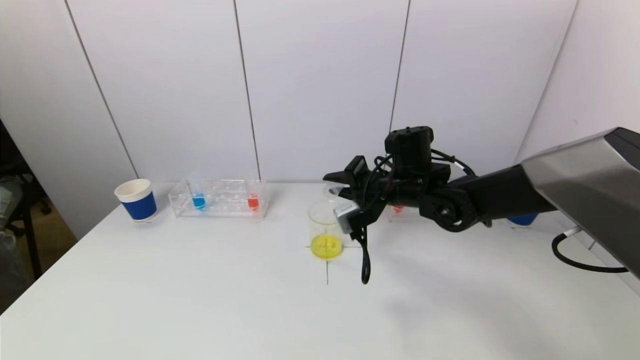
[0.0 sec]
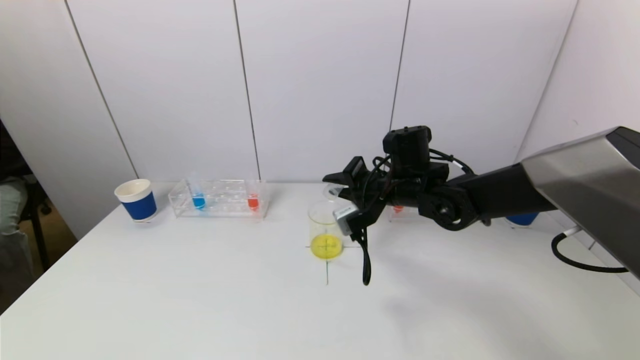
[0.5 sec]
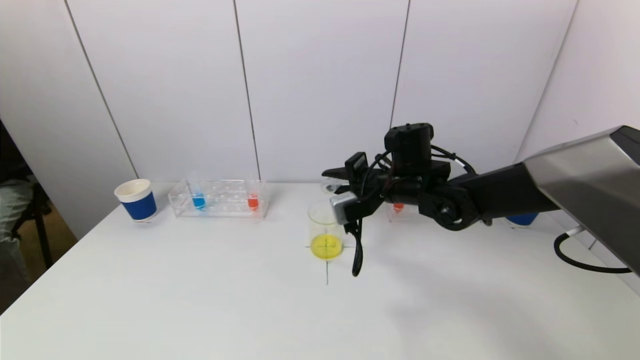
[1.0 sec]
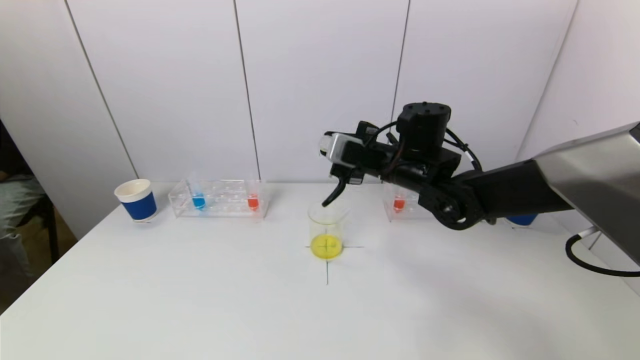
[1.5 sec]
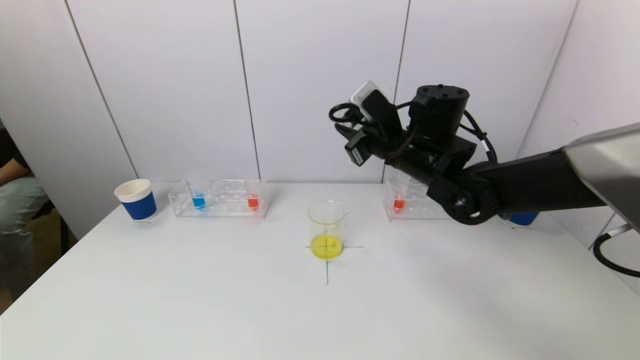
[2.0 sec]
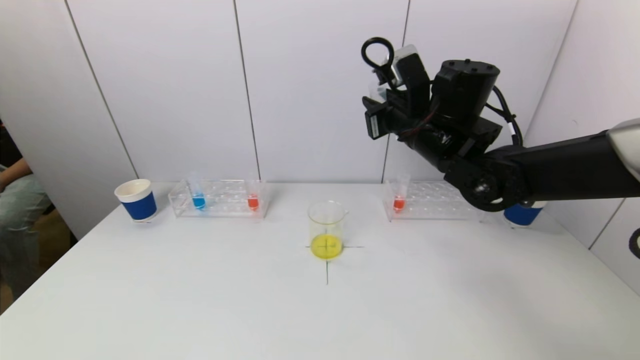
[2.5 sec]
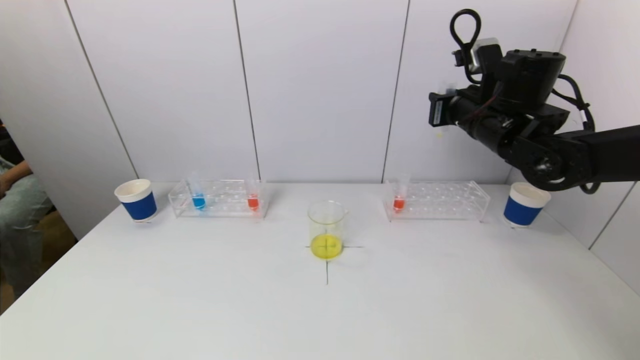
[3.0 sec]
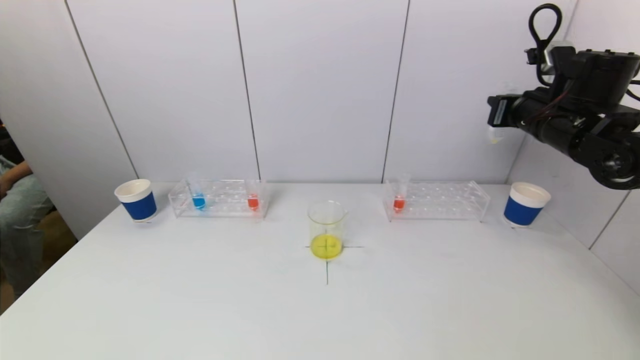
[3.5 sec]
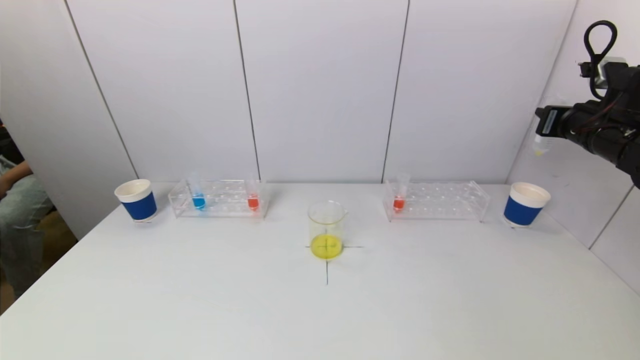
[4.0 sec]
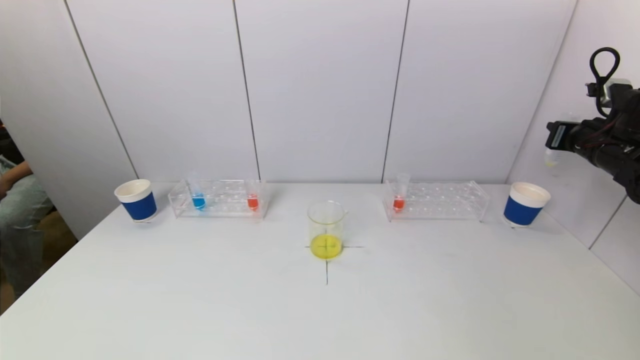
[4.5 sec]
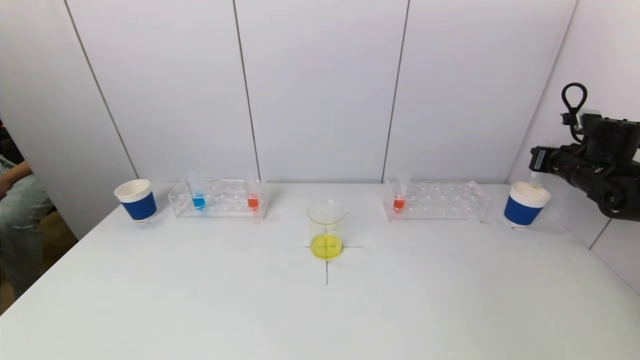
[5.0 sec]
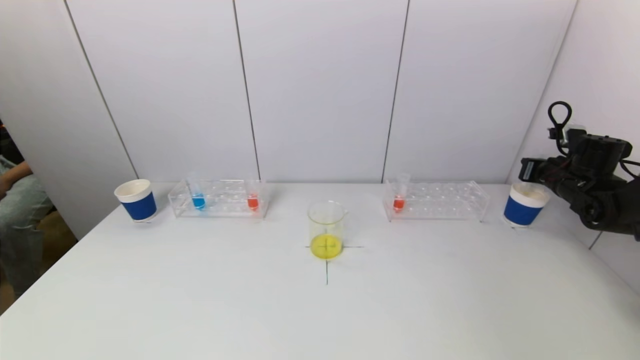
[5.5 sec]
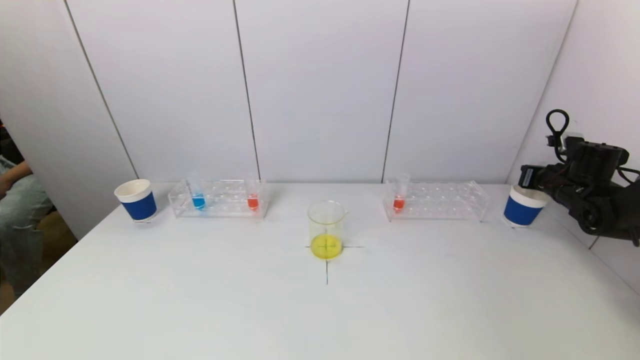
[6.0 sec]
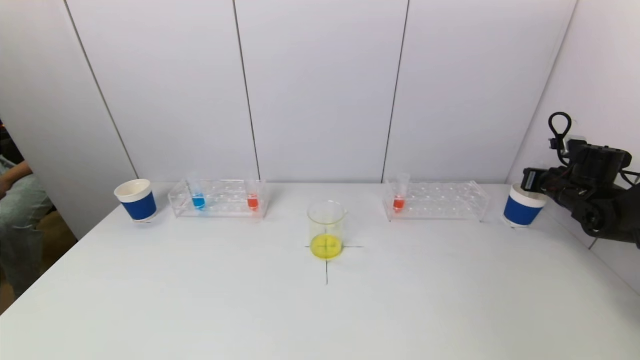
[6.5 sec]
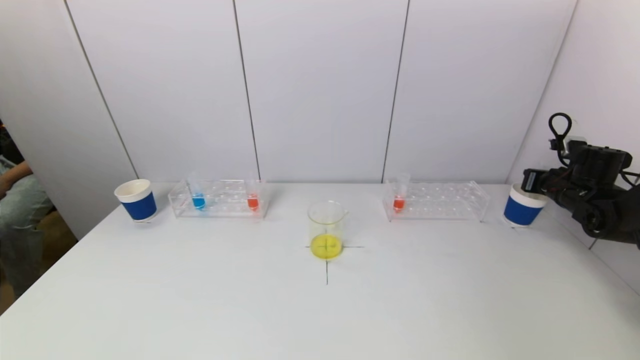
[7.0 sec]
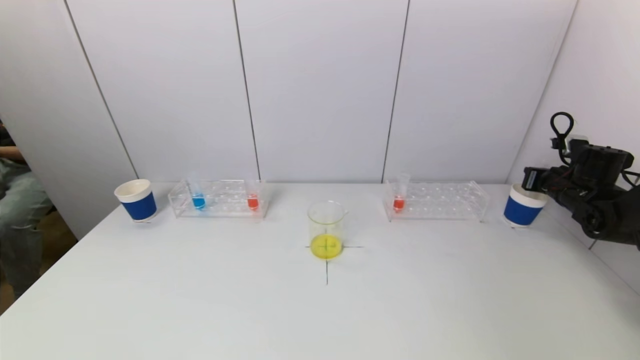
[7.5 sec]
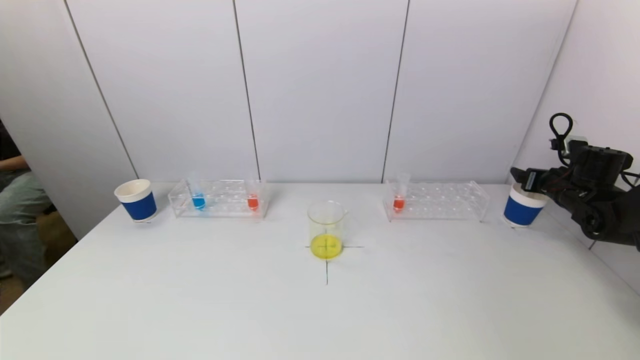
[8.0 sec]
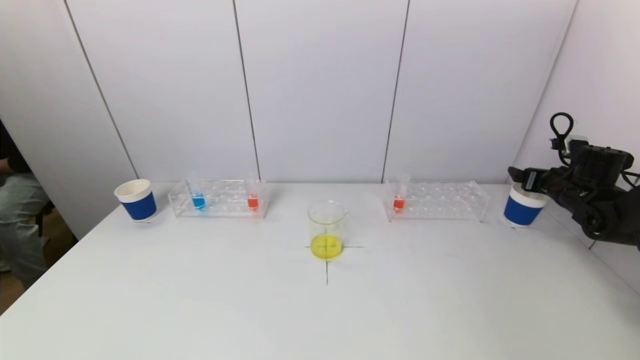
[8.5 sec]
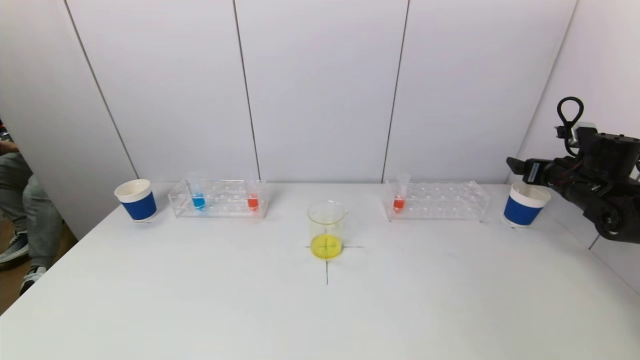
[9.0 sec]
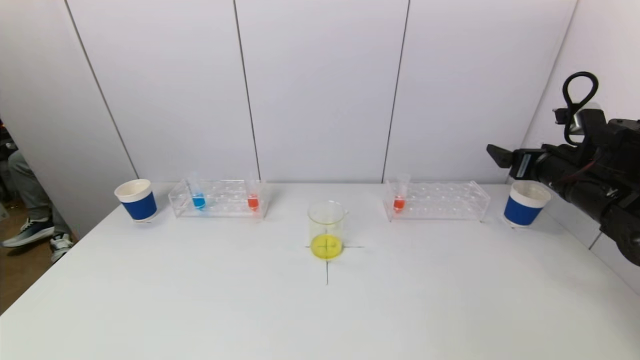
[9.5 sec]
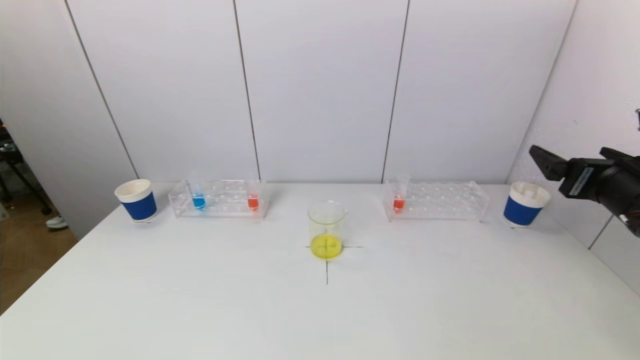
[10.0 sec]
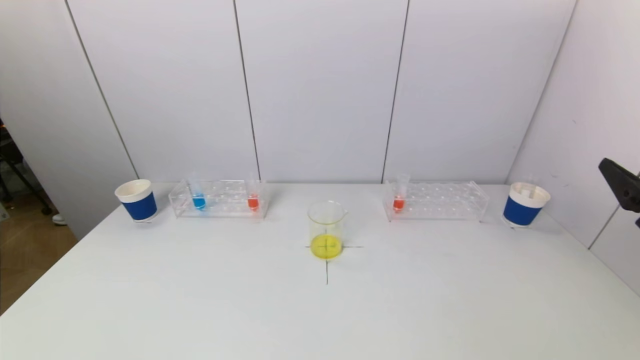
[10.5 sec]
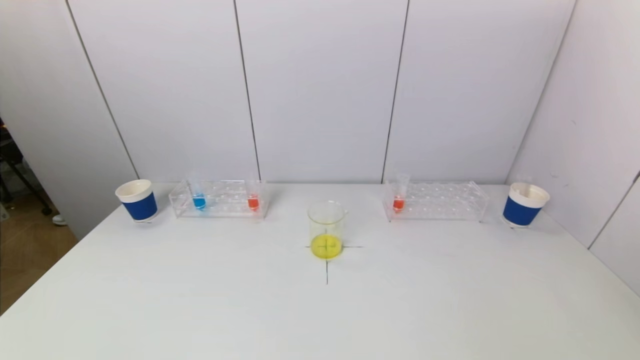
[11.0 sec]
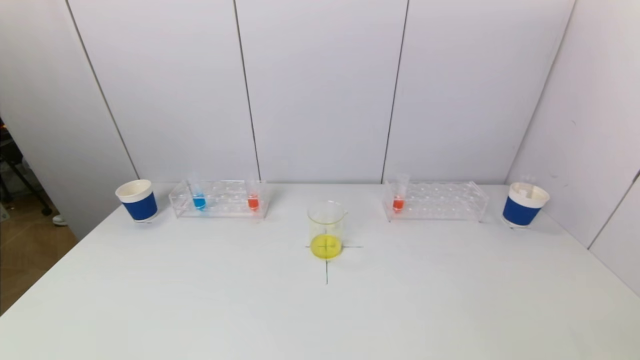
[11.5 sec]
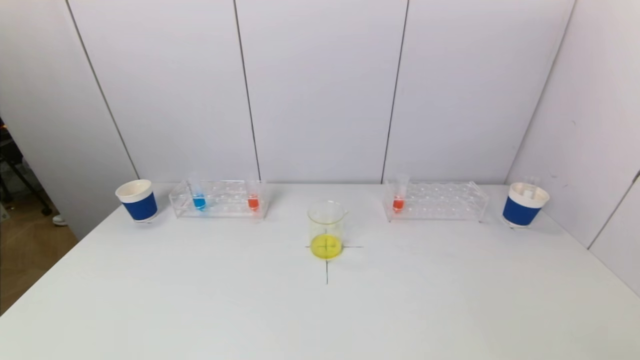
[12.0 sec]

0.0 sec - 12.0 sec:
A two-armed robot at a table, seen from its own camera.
Task of the whole recording: pick up a test tube with pigment on left test tube rack and a test tube with pigment on right test tube rack by grippers and pour them into the beaker.
Step, 0.0 sec - 7.5 sec: Place the test tube into the paper cup with the right gripper.
0.0 sec - 2.0 sec: The right gripper shifts roughly 5 cm upward.
2.0 sec - 4.0 sec: The right gripper travels to the right by some 30 cm.
4.0 sec - 6.0 sec: The right gripper shifts approximately 15 cm downward and to the right.
6.0 sec - 8.0 sec: The right gripper opens up.
8.0 sec - 10.0 sec: The right gripper moves backward, to the left and upward, some 25 cm.
10.0 sec - 12.0 sec: The right gripper goes roughly 25 cm backward and downward.

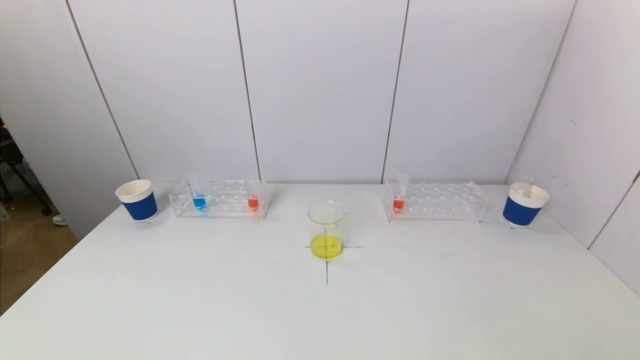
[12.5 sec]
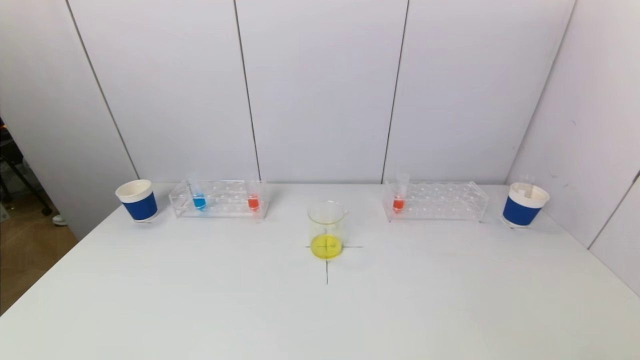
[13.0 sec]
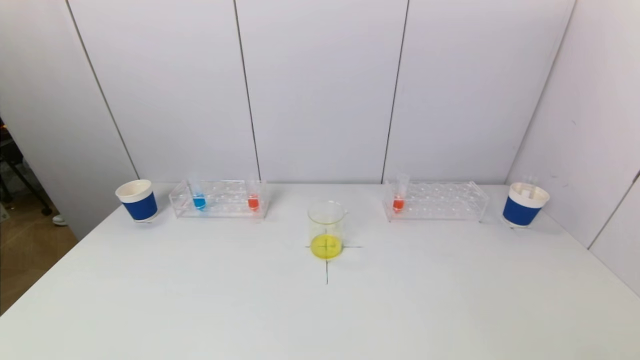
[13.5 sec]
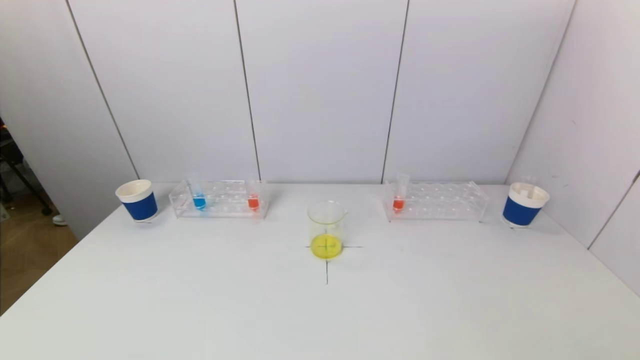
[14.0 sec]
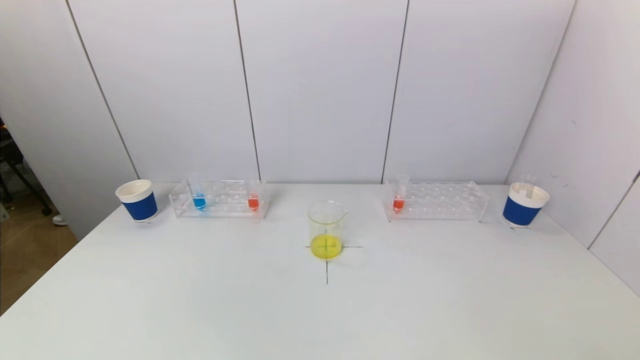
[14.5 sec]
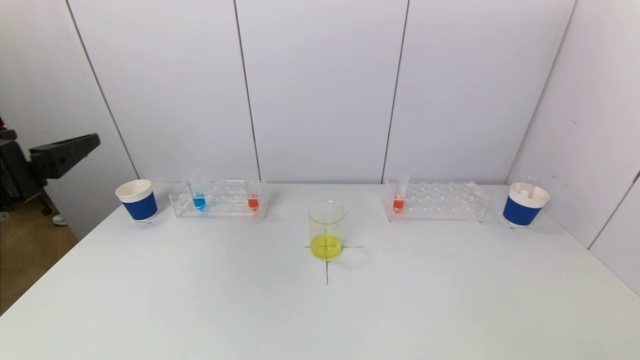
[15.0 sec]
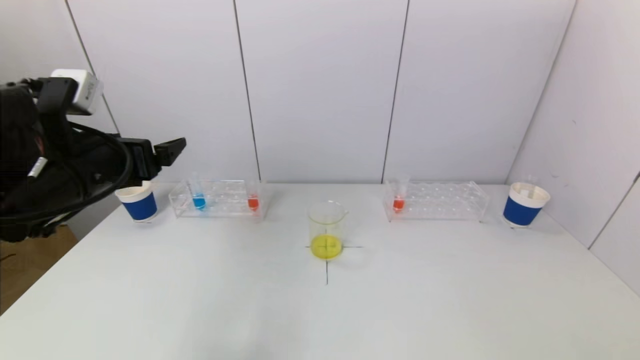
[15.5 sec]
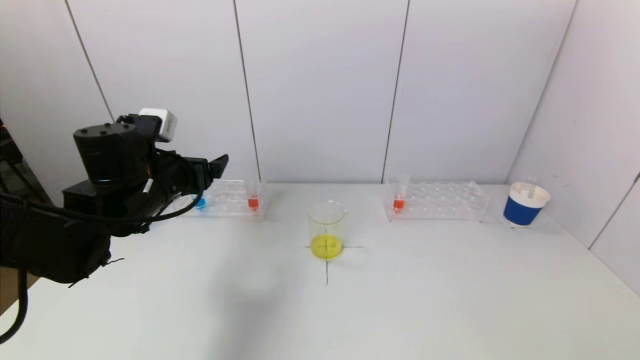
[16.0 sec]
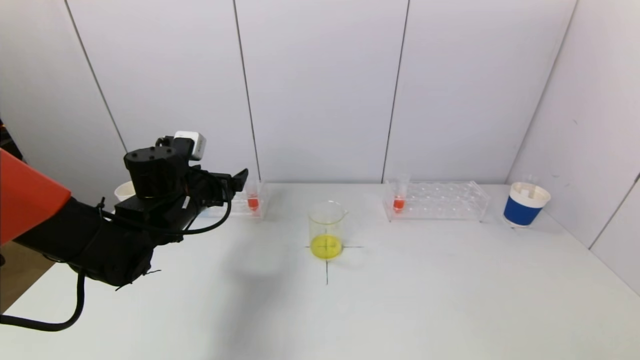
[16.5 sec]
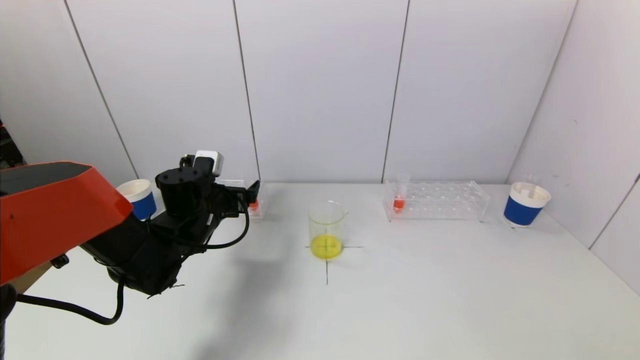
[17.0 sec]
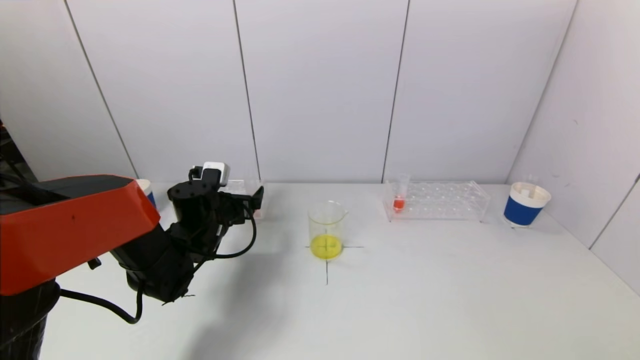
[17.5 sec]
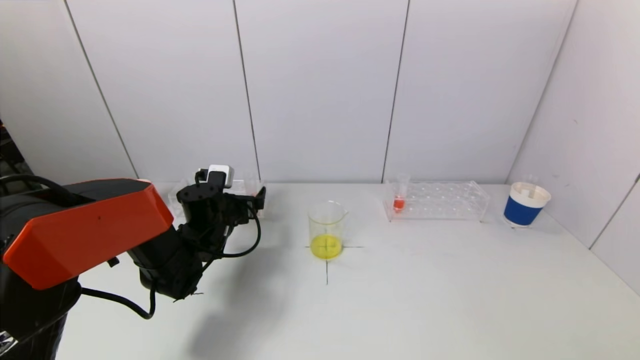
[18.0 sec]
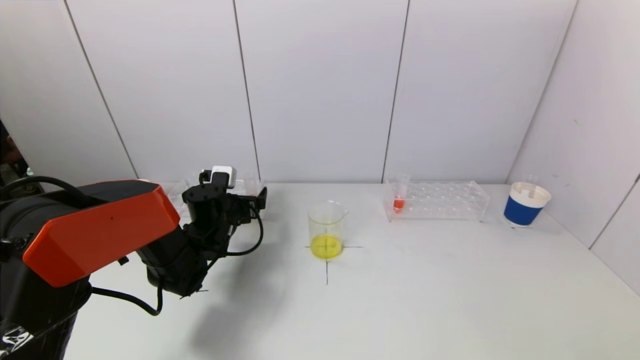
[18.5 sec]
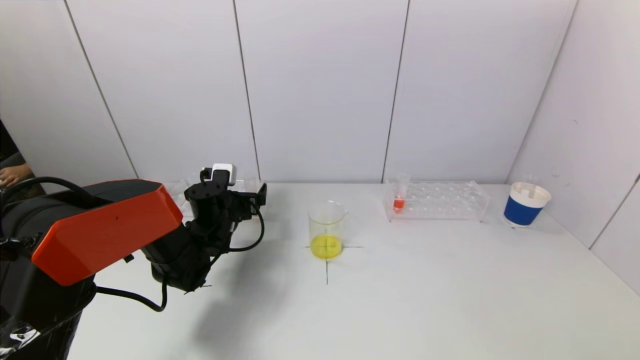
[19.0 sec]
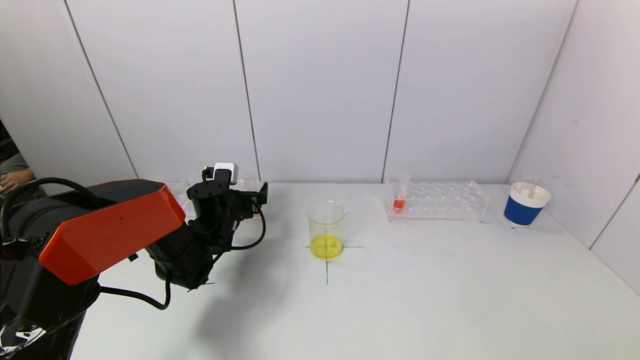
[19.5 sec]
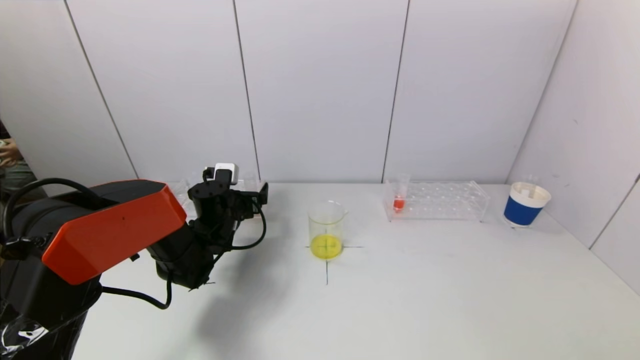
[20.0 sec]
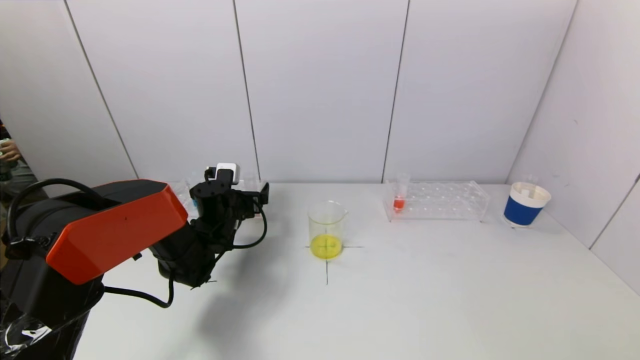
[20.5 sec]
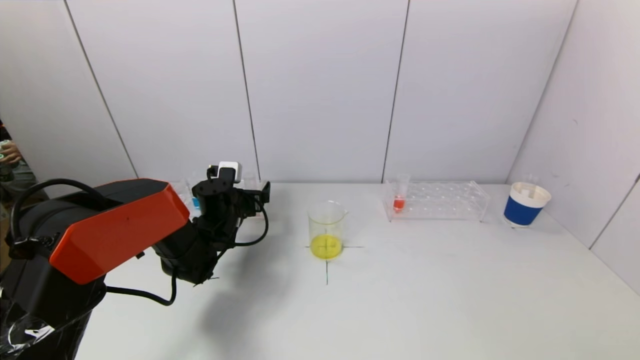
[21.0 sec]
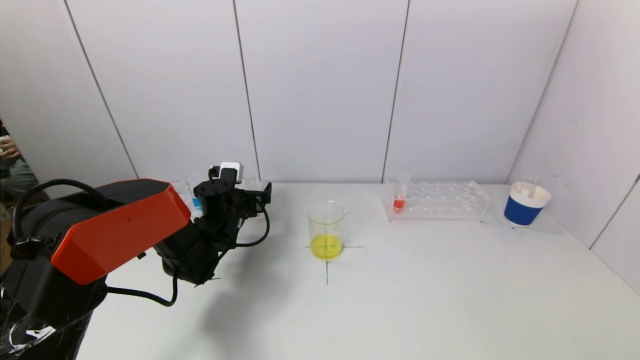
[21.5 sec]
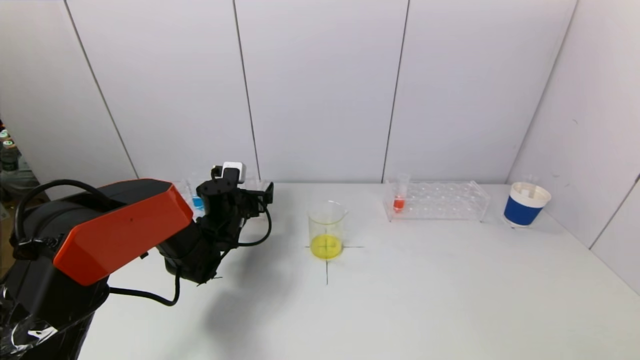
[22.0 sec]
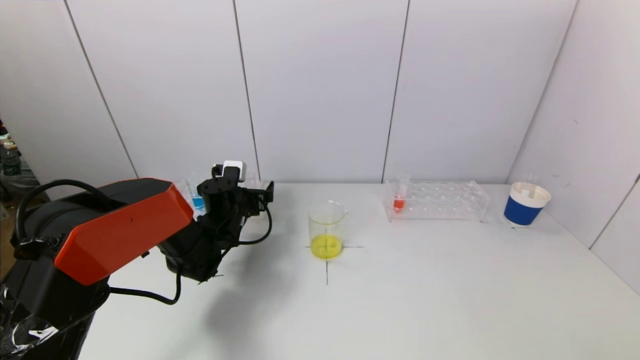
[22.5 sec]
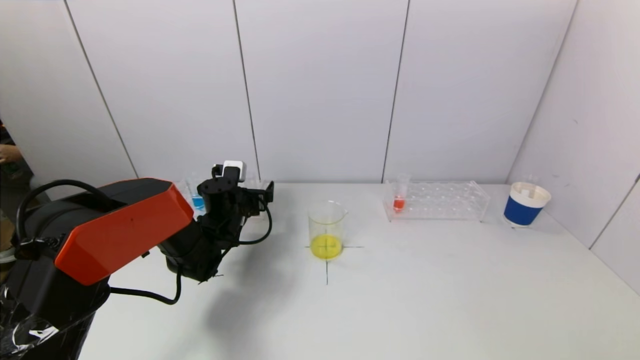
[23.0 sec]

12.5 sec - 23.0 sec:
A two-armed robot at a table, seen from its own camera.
Task of the whole recording: pick up a test tube with pigment on left test tube rack and a test tube with pigment on right test tube rack by grippers and pour them into the beaker.
14.5 sec - 16.5 sec: The left gripper heads forward, covering about 30 cm.
16.5 sec - 19.0 sec: The left gripper heads downward and forward, covering some 10 cm.
19.0 sec - 21.0 sec: The grippers make only small movements.
21.0 sec - 23.0 sec: Neither gripper changes place.
